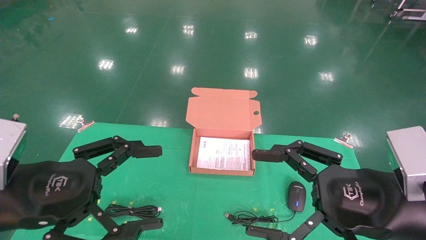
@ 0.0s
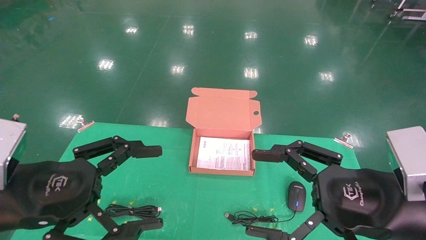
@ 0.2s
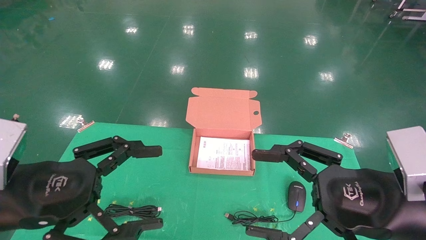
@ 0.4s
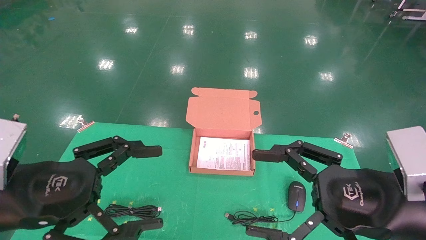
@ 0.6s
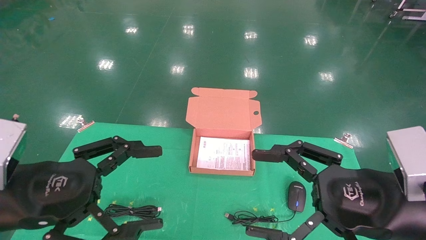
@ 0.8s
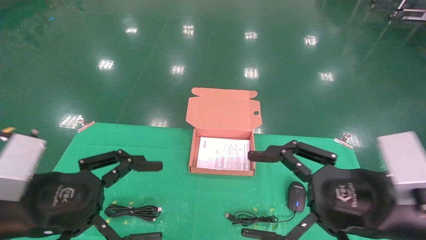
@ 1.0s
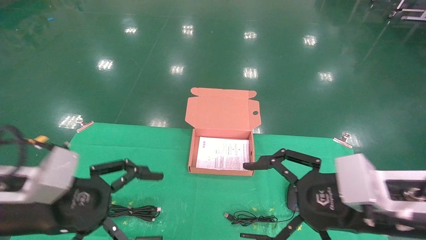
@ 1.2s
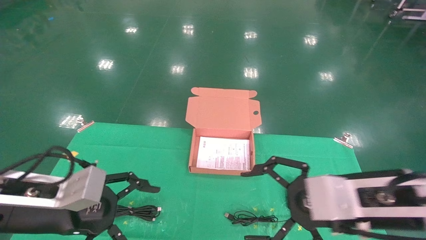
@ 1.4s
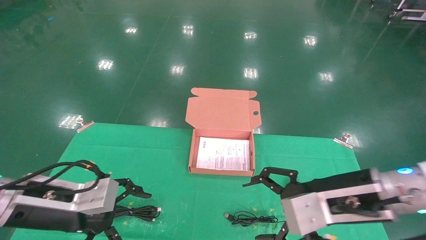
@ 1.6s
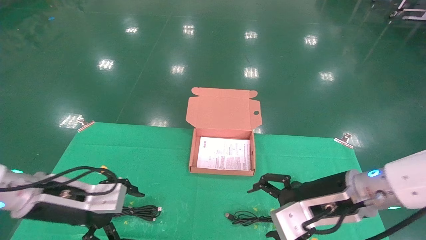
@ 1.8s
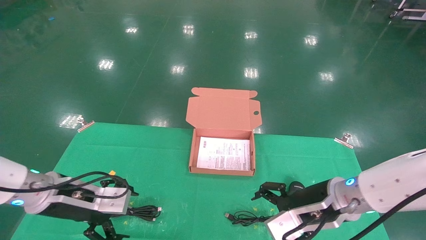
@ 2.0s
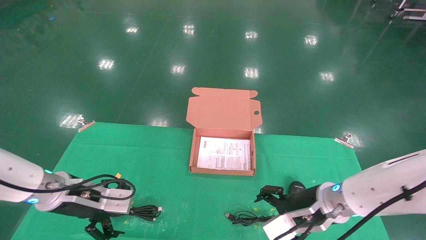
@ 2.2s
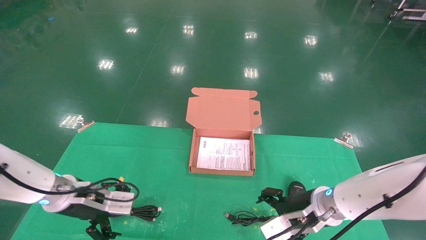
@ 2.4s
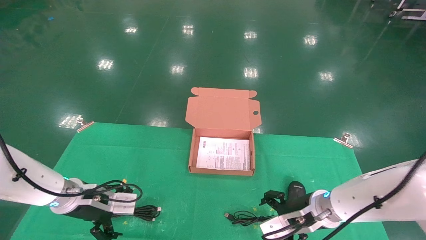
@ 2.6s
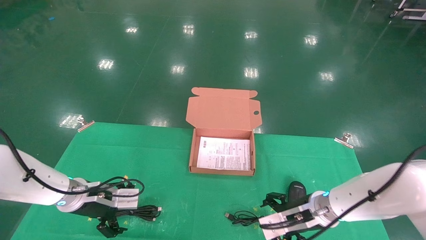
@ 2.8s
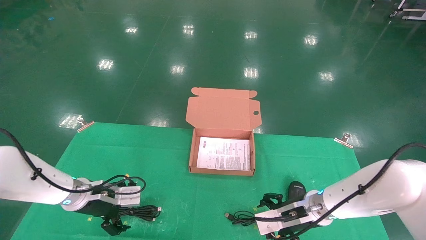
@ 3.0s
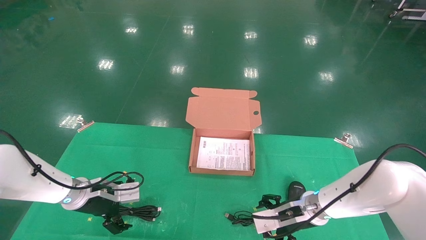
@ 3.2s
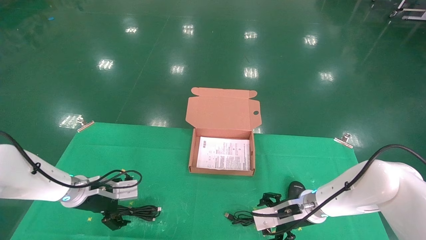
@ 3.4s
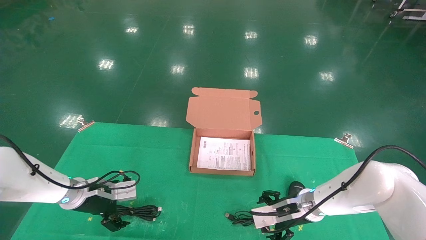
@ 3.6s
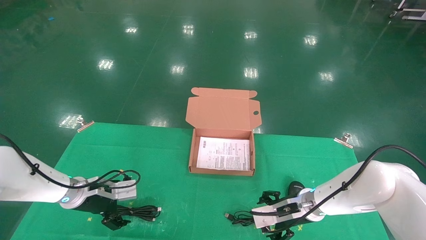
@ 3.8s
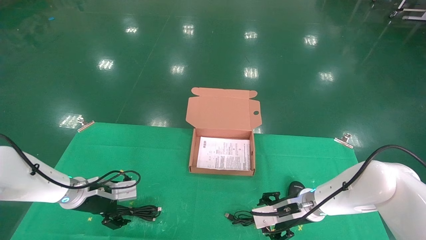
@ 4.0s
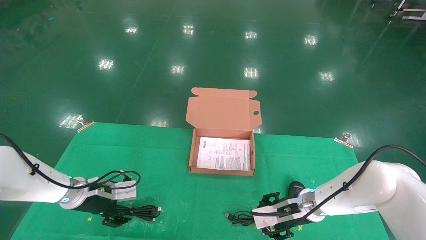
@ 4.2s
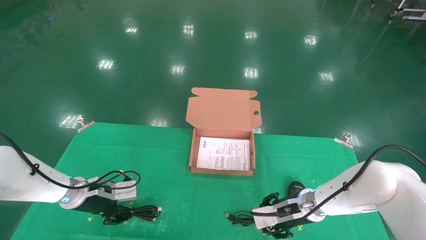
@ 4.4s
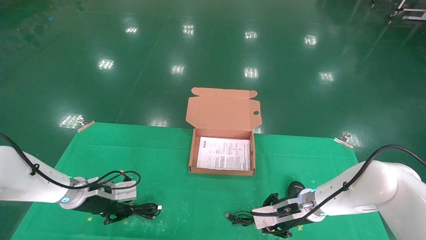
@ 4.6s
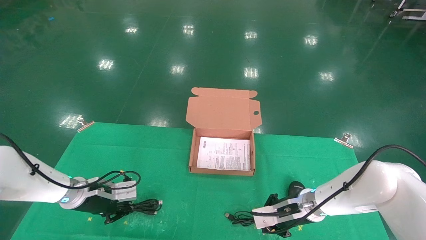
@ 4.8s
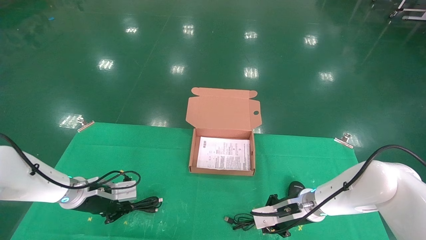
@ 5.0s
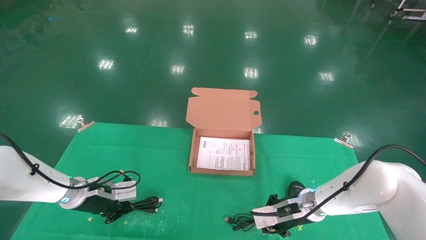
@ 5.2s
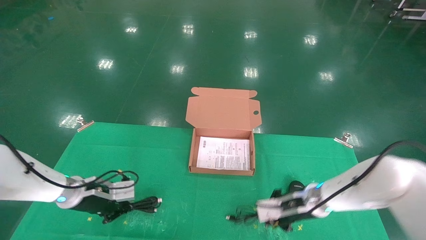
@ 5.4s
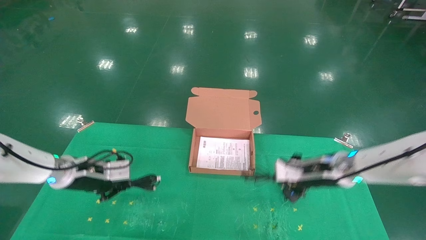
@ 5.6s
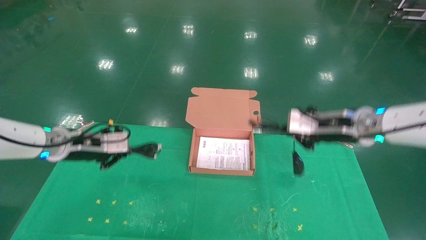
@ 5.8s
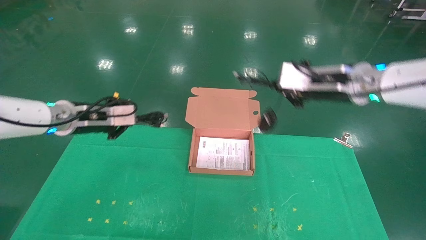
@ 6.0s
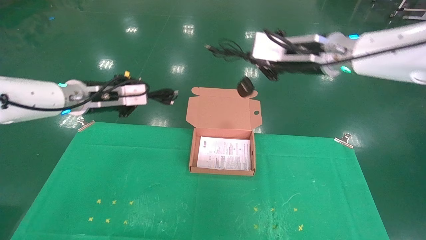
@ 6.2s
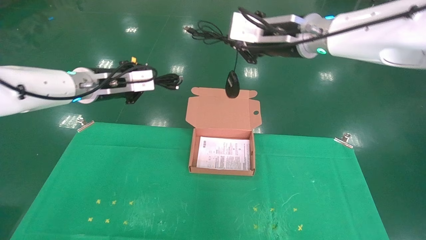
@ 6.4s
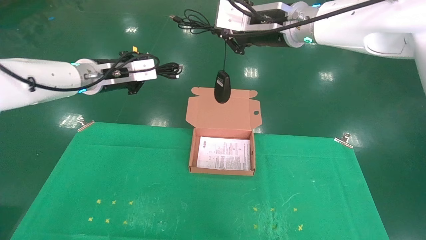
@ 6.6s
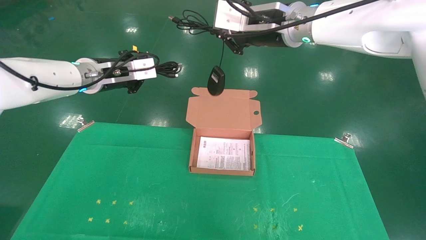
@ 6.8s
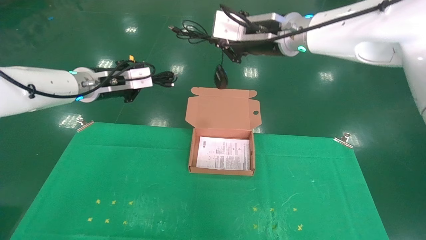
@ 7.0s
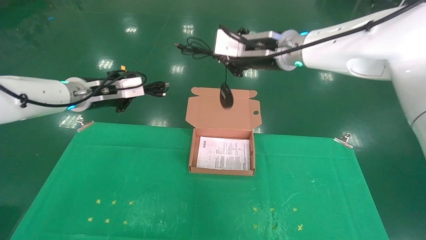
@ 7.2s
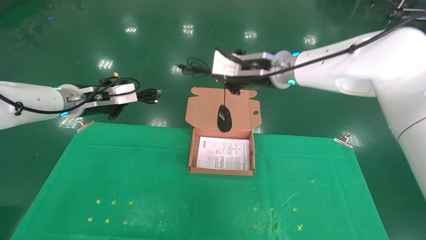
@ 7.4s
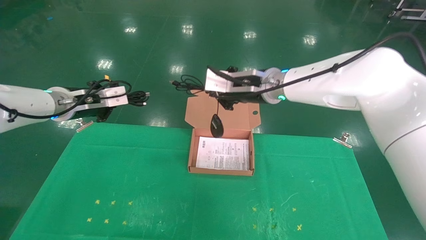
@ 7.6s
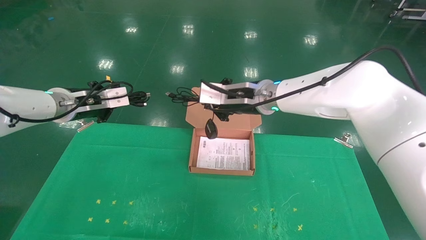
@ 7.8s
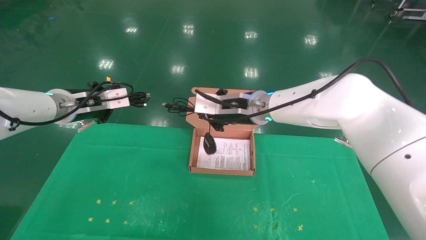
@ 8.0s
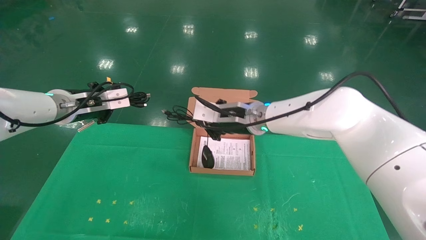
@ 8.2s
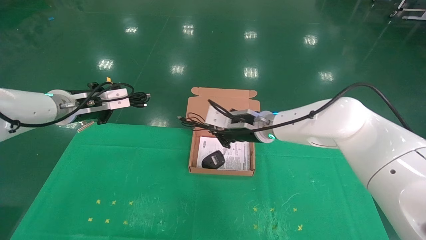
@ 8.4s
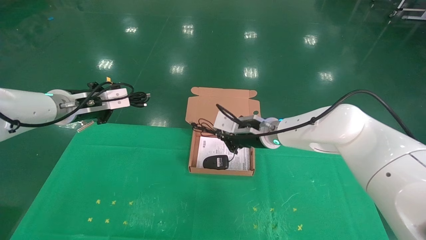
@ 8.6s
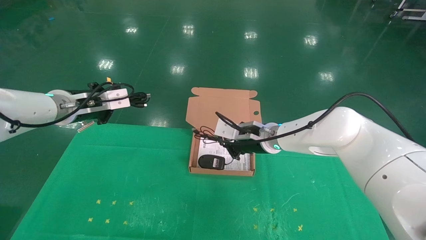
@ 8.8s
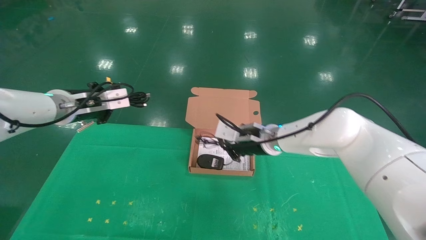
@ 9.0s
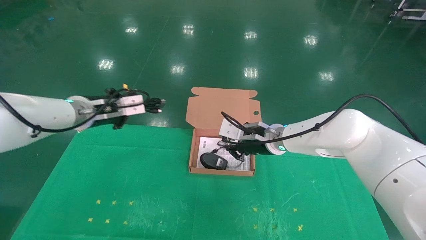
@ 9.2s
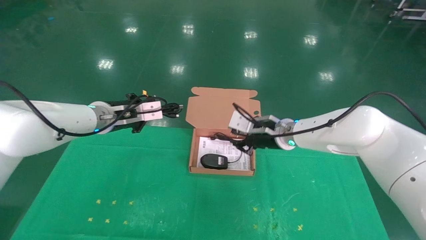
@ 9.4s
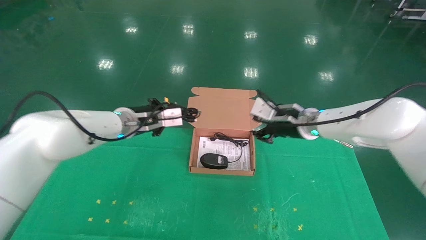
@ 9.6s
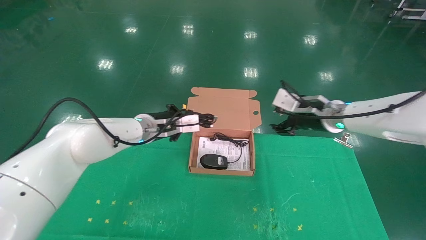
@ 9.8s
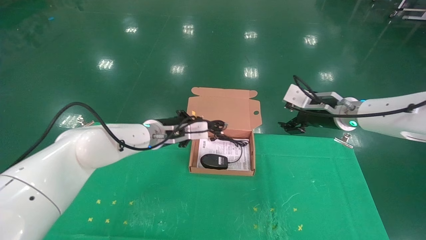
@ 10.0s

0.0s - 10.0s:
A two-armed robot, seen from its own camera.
Task of the whole recording: grasp data cable left put into box grasp mouse right put into box.
Step, 0.8s - 5.2s: Grab and pick up both the mouse and power cord from the accessory packaging area at the same time.
0.0s - 1.4s: The left gripper is displaced forward by some 5 cm, while the right gripper shifts by about 5 cm.
1.4s - 2.8s: Both grippers move forward and downward, approximately 20 cm.
2.8s - 4.2s: The grippers make only small movements.
4.2s - 5.8s: The left gripper heads upward, covering approximately 15 cm, and closes up. Meanwhile the right gripper goes about 20 cm upward, and closes.
5.8s - 7.2s: The right gripper goes approximately 20 cm to the left and upward. Meanwhile the left gripper moves upward, about 10 cm.
7.2s - 8.6s: The right gripper is displaced downward by about 20 cm.
8.6s - 10.0s: The left gripper shifts approximately 20 cm to the right and downward. The right gripper goes about 15 cm to the right, and opens.

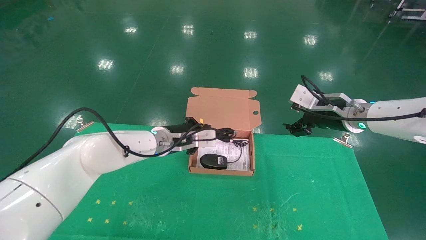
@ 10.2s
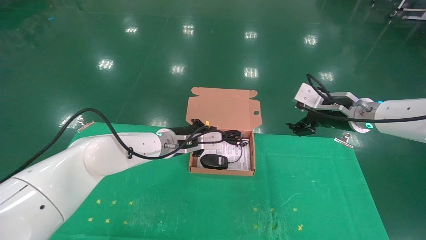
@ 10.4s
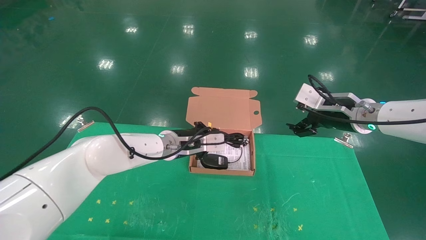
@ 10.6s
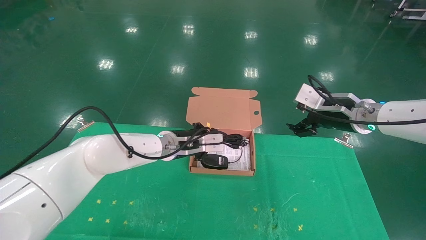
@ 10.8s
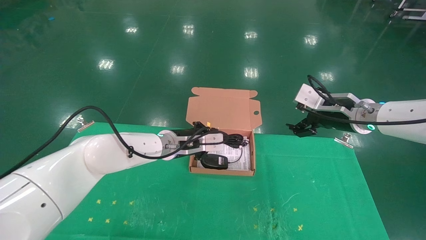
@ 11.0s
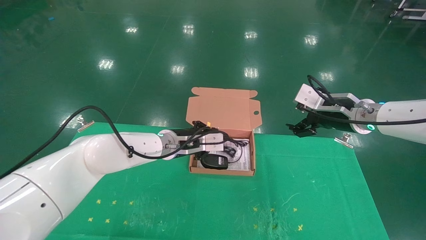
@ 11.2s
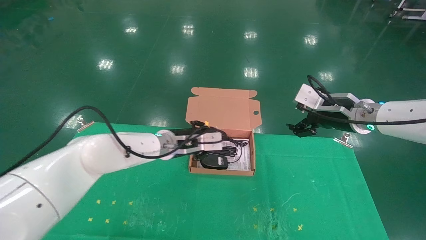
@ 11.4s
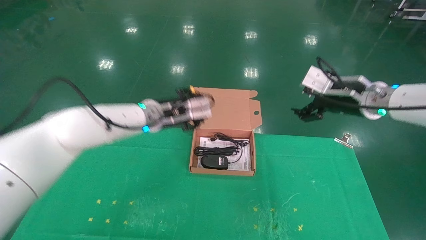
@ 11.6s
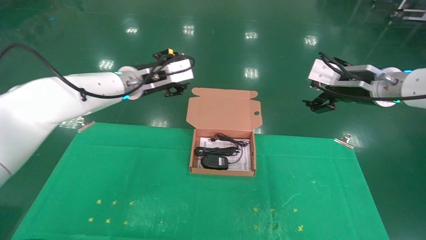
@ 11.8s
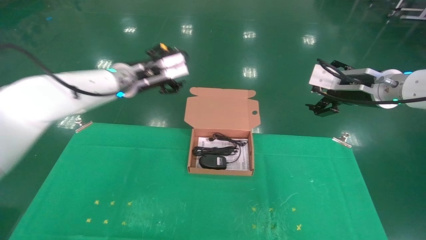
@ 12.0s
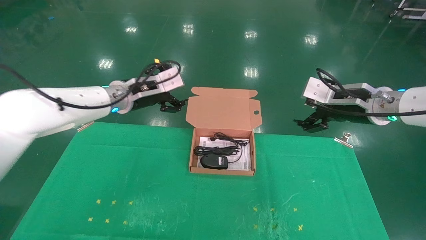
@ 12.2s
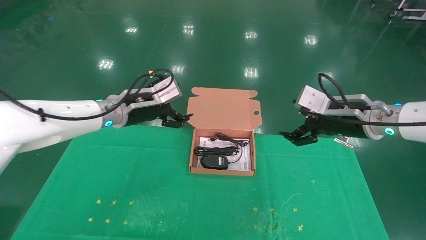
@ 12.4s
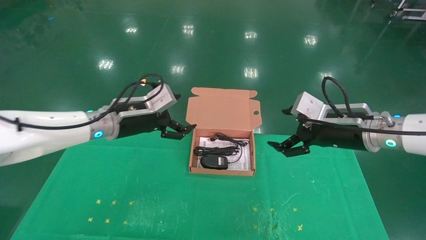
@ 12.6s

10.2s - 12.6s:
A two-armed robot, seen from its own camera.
Task of the whole recording: grasp data cable left put into box grasp mouse right put into box.
Step, 10.2s - 12.6s: Place the mouse and power cord into the box.
10.2s - 11.4s: The grippers make only small movements.
11.4s - 12.6s: The left gripper is displaced to the left and backward by roughly 10 cm, and opens its fingers. The right gripper moves backward, about 5 cm.

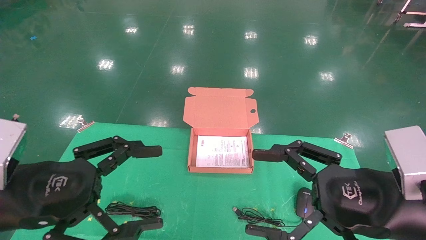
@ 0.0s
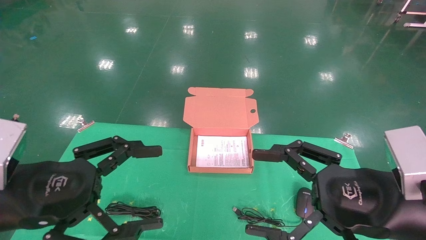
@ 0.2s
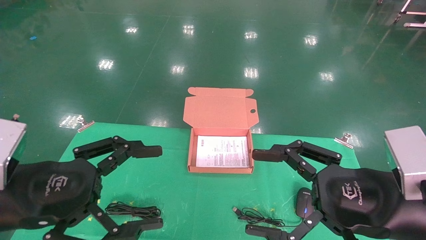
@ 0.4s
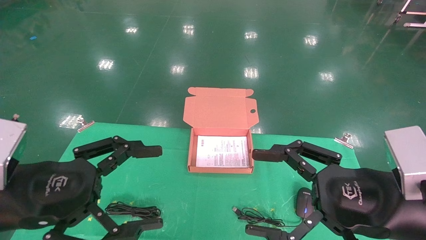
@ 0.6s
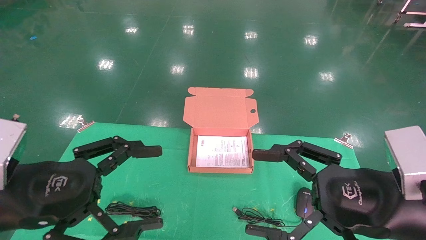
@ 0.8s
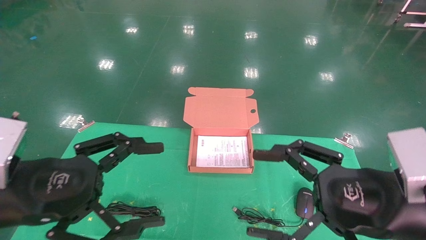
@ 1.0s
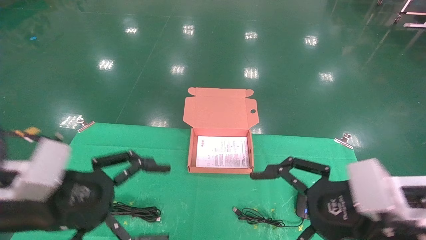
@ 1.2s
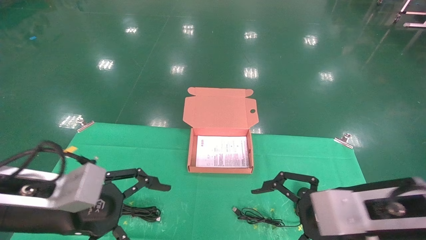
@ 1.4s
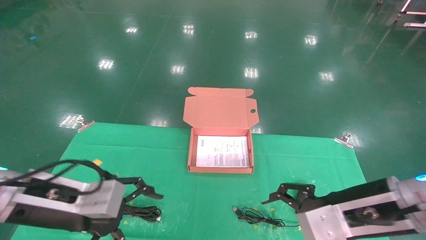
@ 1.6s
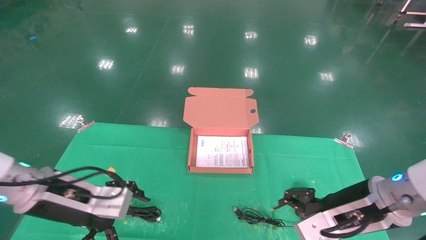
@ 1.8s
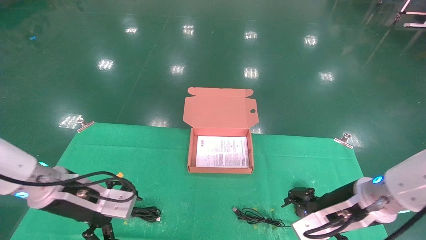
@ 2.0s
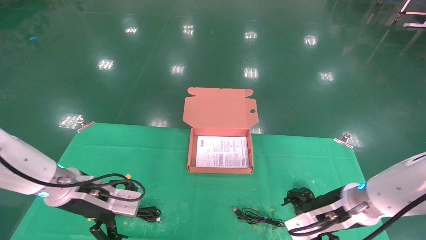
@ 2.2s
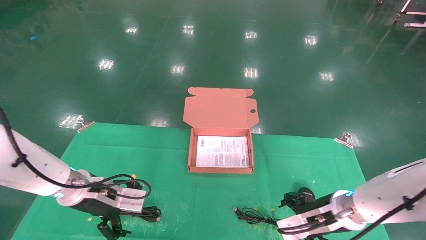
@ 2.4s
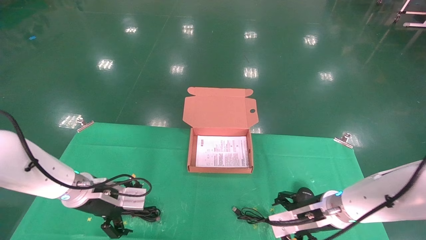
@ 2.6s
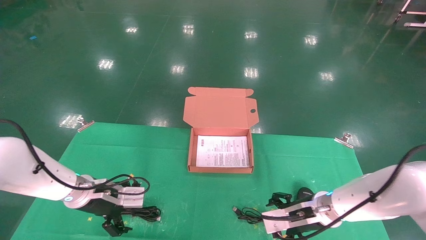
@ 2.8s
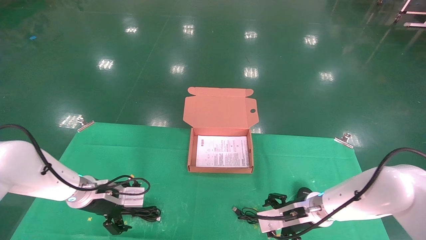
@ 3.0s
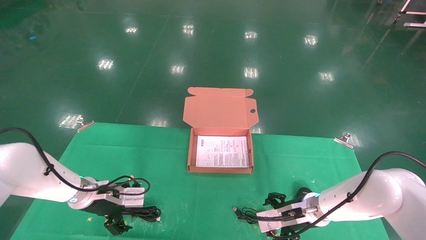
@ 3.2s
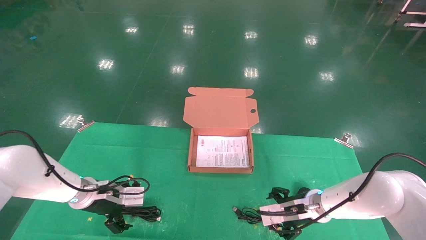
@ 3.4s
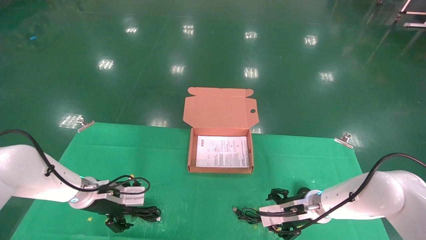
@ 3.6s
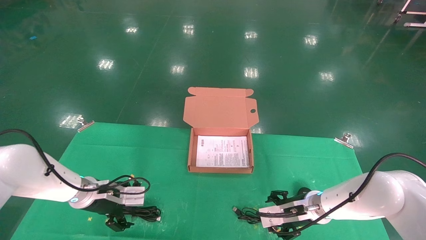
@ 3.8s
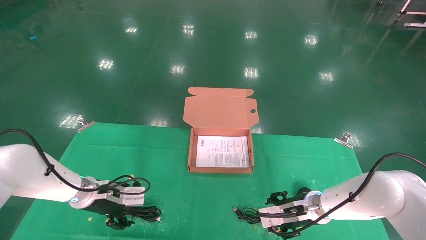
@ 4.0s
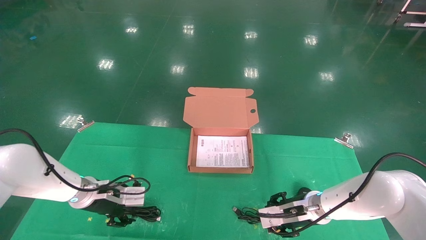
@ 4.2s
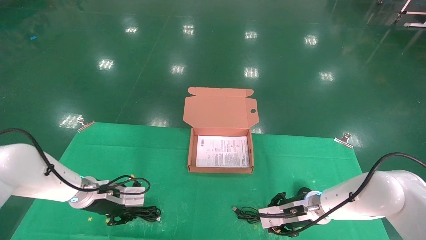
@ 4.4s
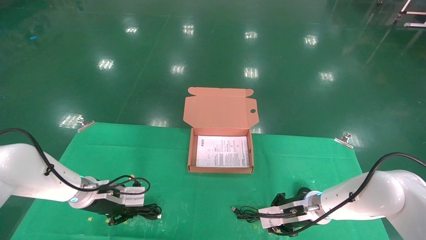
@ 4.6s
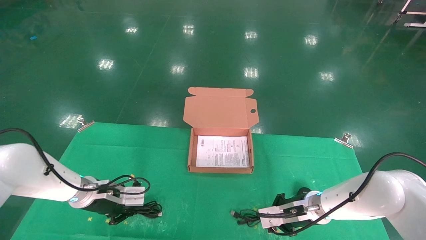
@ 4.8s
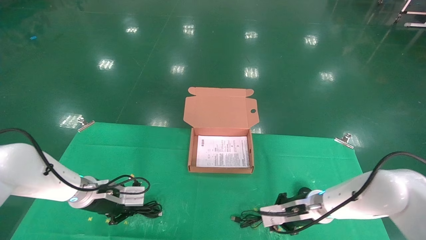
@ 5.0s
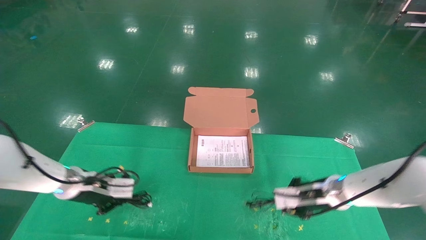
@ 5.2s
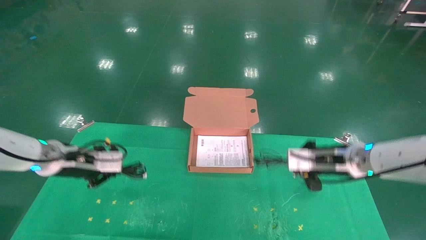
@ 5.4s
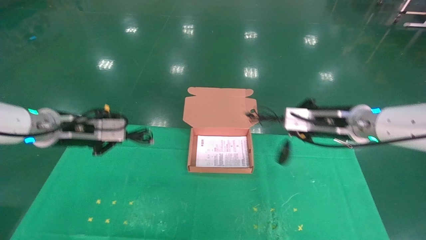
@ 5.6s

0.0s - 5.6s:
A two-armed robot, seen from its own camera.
Task of the whole recording: grasp data cable left put into box grasp mouse right put into box.
Step, 0.8s - 5.4s: Grab and pick up both the mouse and power cord from the accessory packaging area at the same time.
0.0s - 1.4s: The left gripper ends up approximately 5 cm from where it was.
1.4s - 2.8s: The grippers both shift forward and downward by roughly 20 cm.
2.8s - 4.2s: The right gripper is displaced forward by approximately 5 cm, and closes. The left gripper shifts by about 5 cm, and closes.
4.2s - 5.6s: The two grippers go about 20 cm upward. The left gripper closes. Meanwhile the right gripper closes.
